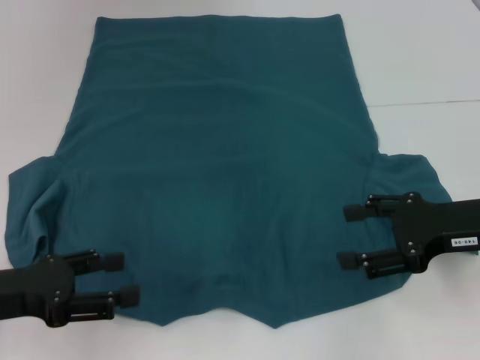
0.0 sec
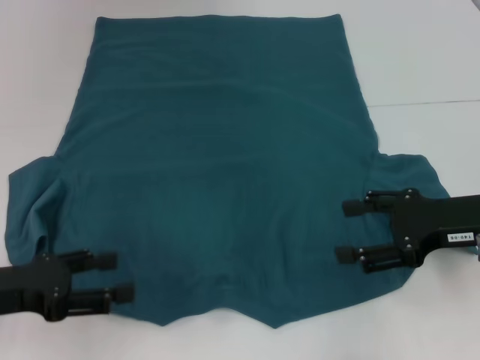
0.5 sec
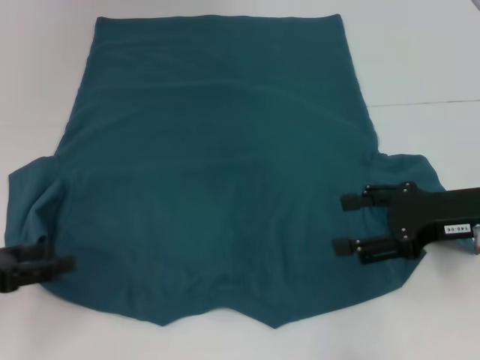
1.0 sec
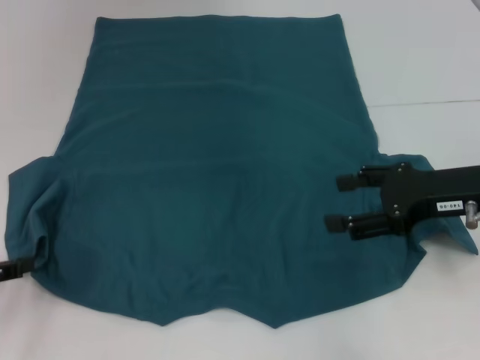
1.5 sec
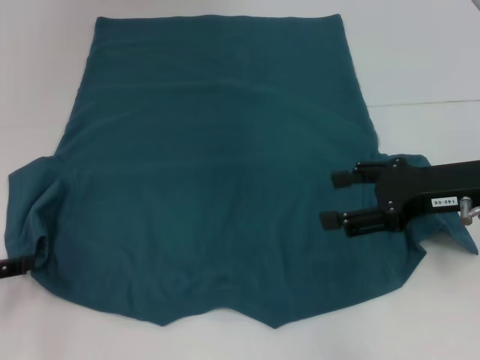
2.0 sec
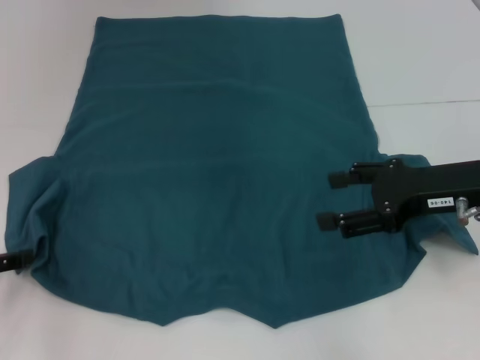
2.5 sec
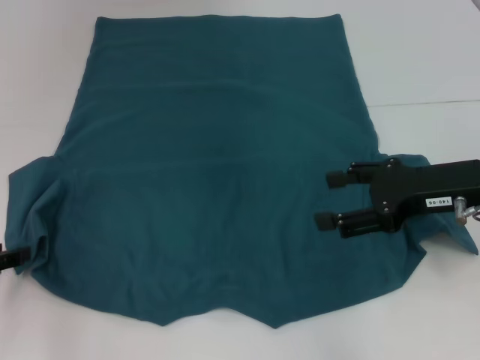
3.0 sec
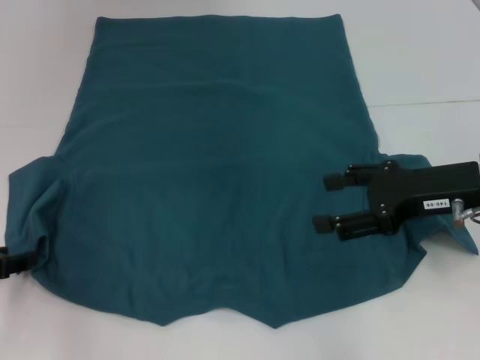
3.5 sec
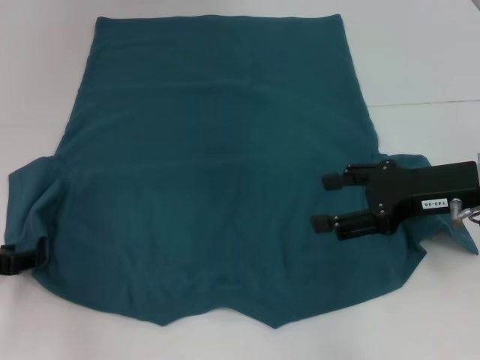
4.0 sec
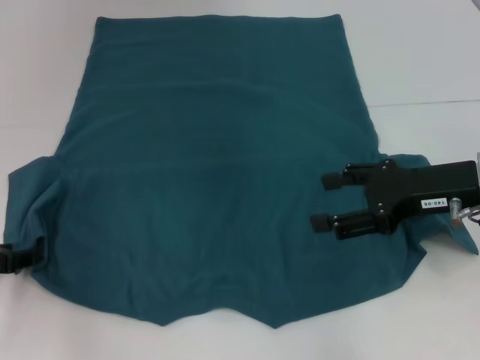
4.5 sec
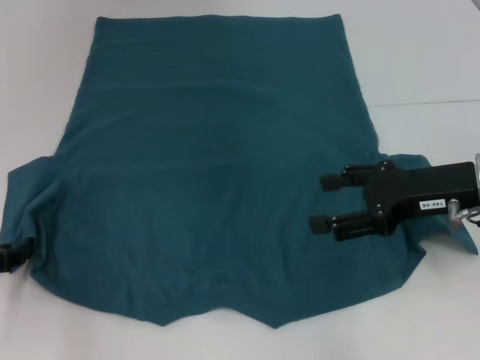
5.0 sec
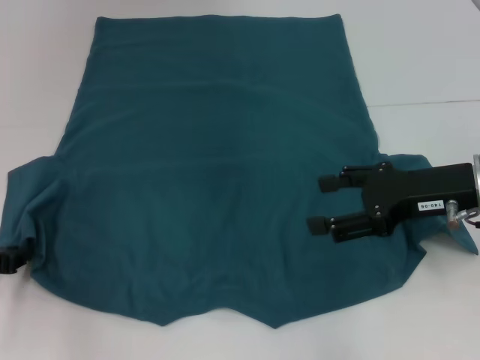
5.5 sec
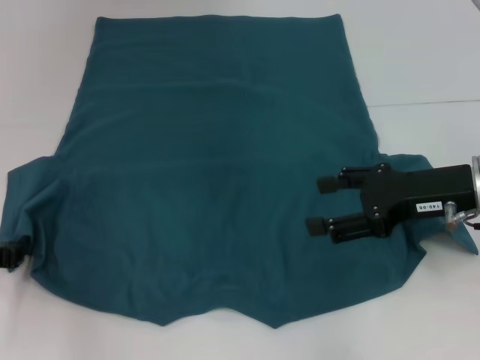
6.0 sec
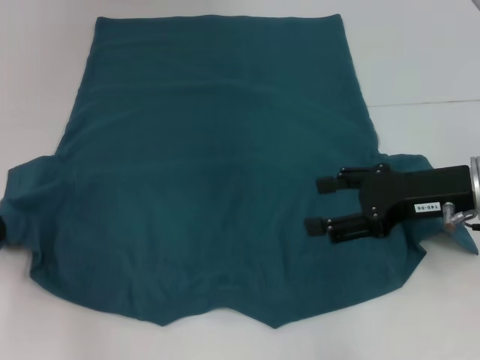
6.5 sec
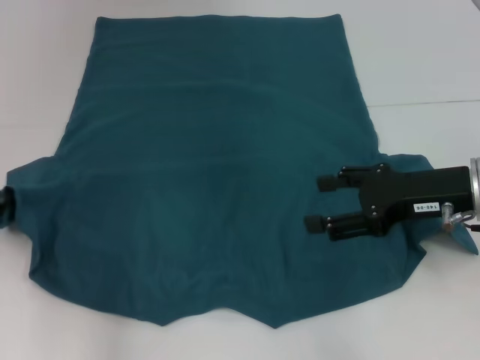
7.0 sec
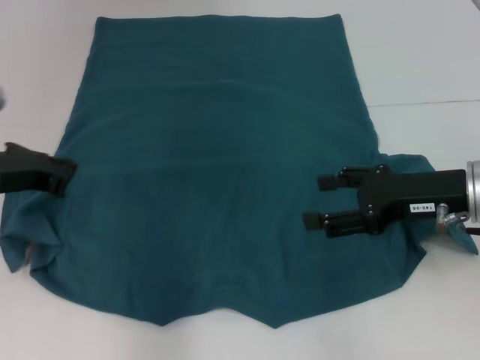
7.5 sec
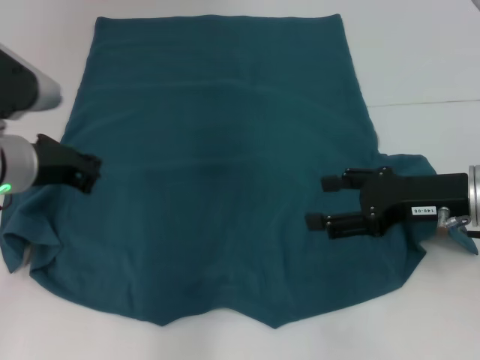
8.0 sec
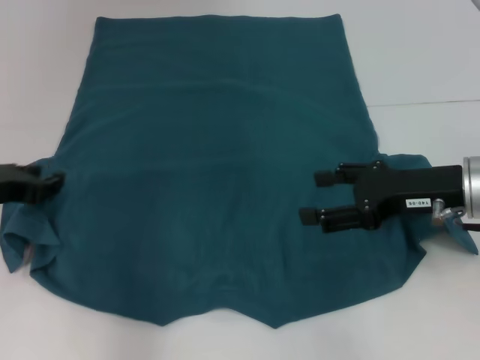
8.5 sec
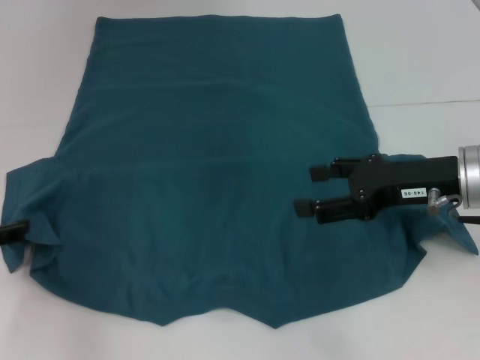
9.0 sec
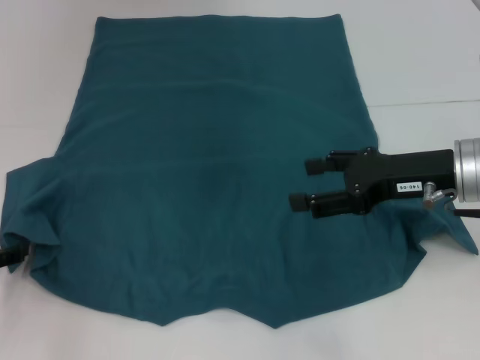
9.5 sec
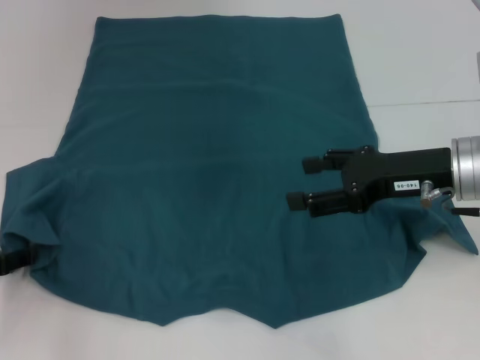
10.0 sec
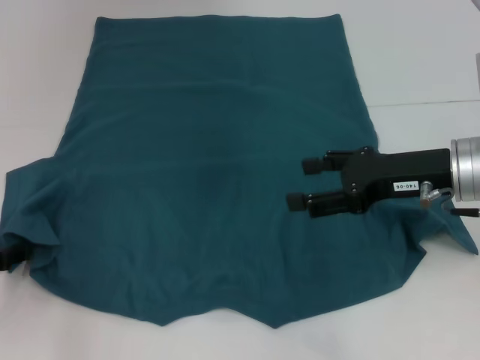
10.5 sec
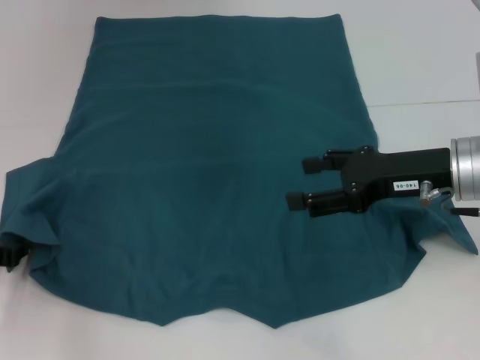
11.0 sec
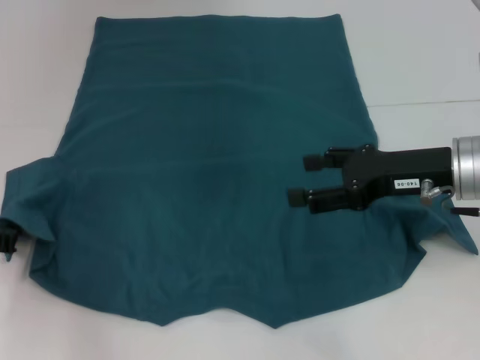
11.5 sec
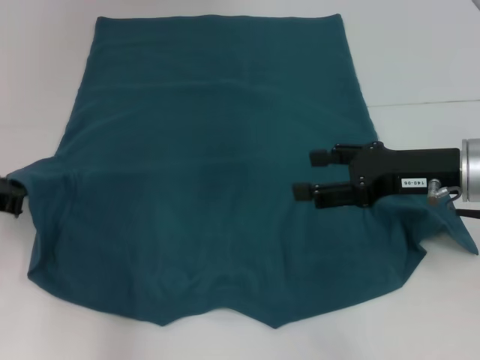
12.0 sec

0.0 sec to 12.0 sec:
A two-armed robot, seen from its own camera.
0.0 sec to 2.0 sec: The left gripper shifts some 5 cm to the left.
2.0 sec to 4.0 sec: There are only small adjustments of the grippers.
4.0 sec to 6.0 sec: The left gripper closes its fingers.
6.0 sec to 8.0 sec: The left gripper shifts about 15 cm to the right, upward and forward.
8.0 sec to 10.0 sec: The left gripper heads to the left, downward and backward, covering about 15 cm, and opens up.
10.0 sec to 12.0 sec: The left gripper changes place by some 5 cm, and closes up.

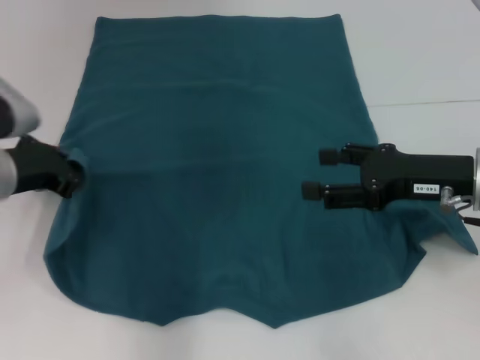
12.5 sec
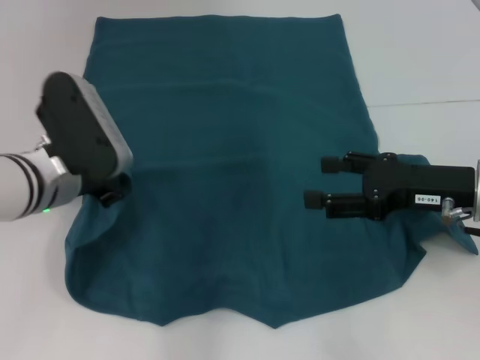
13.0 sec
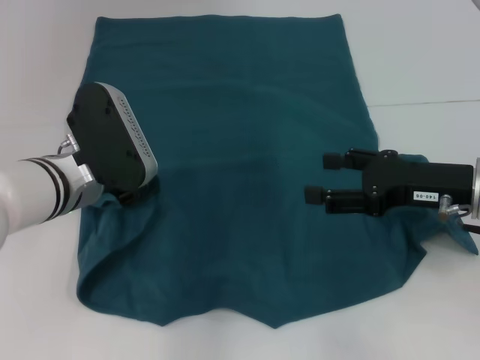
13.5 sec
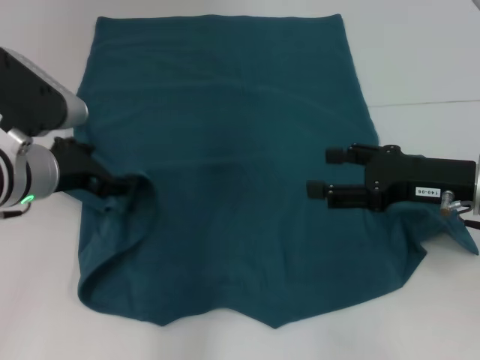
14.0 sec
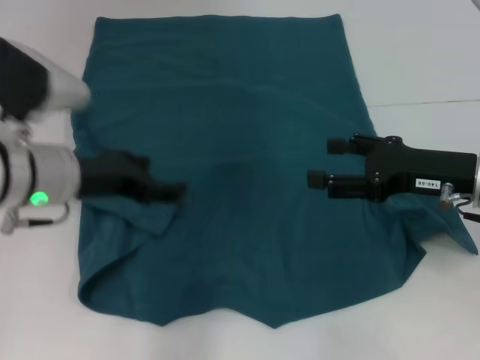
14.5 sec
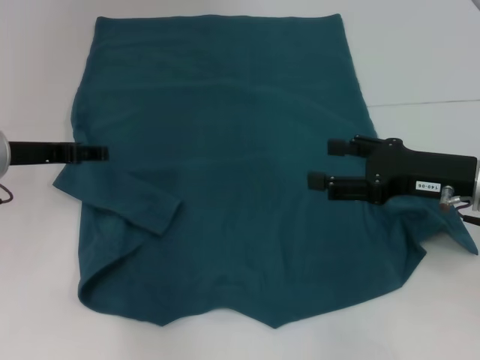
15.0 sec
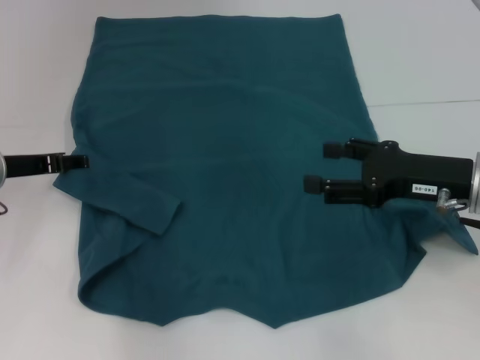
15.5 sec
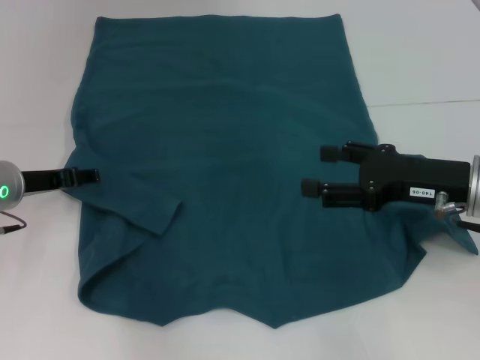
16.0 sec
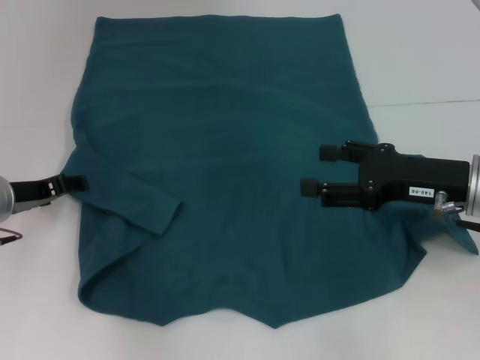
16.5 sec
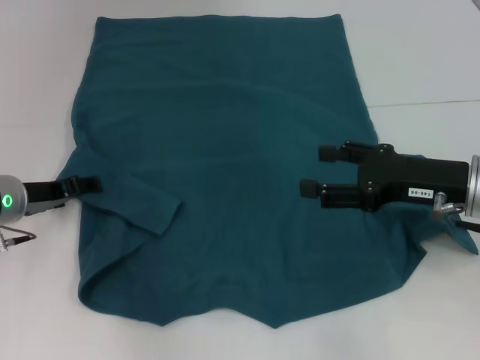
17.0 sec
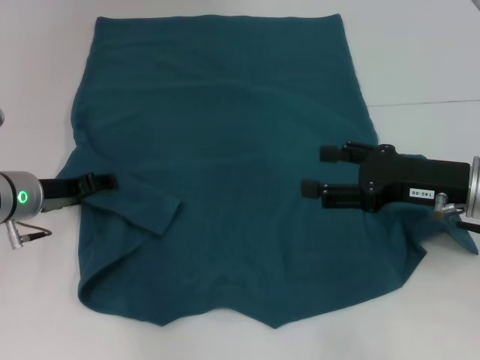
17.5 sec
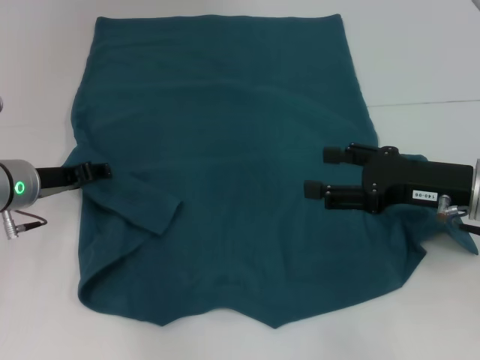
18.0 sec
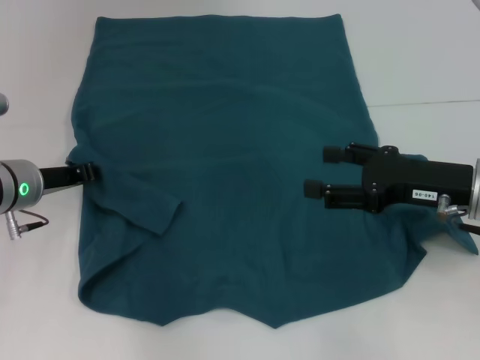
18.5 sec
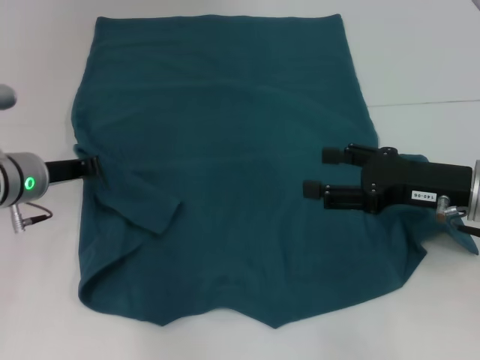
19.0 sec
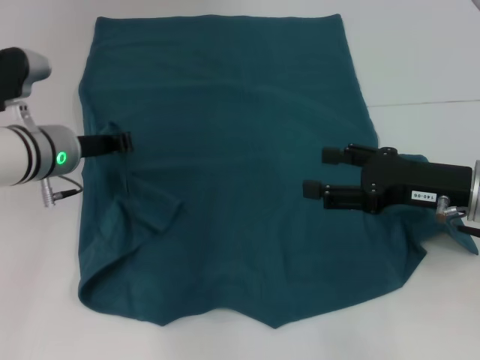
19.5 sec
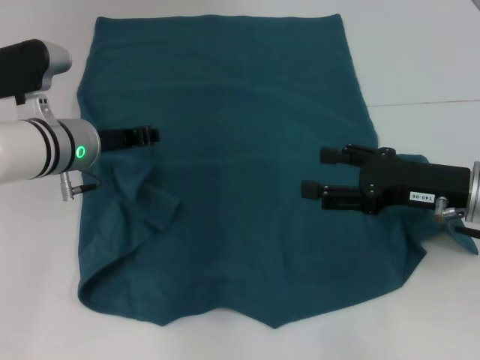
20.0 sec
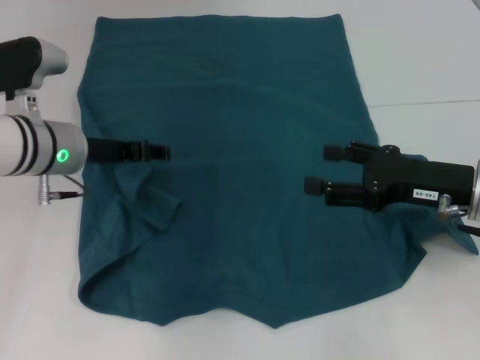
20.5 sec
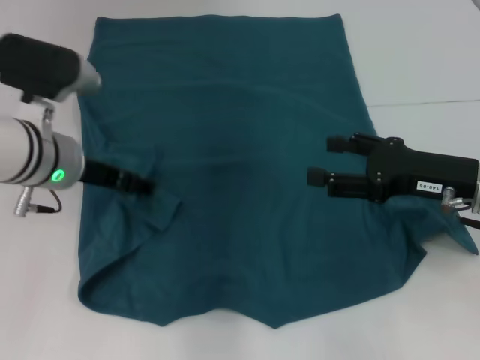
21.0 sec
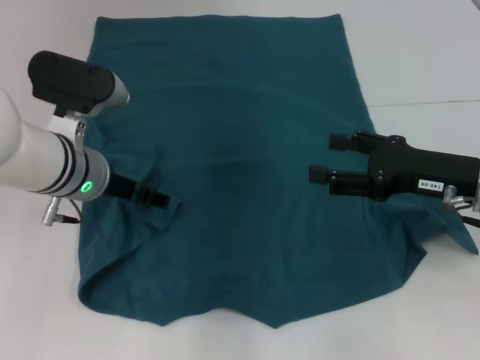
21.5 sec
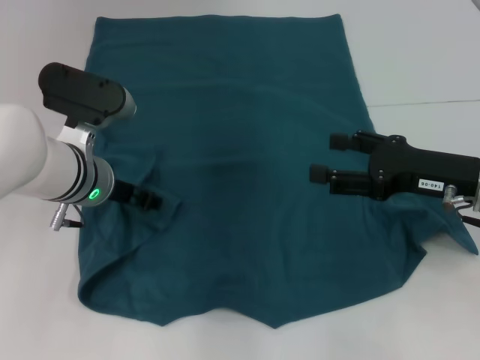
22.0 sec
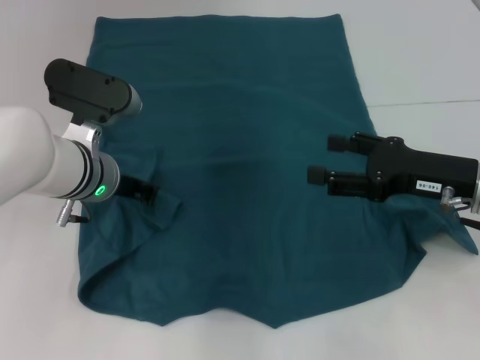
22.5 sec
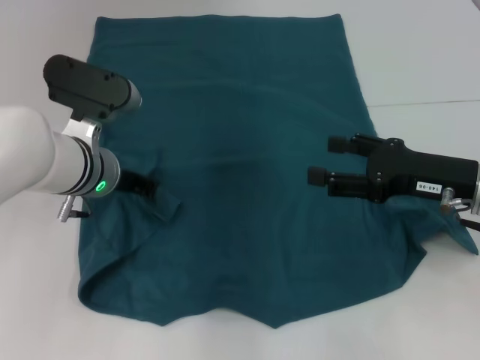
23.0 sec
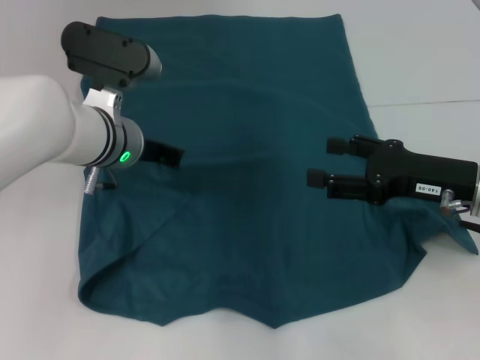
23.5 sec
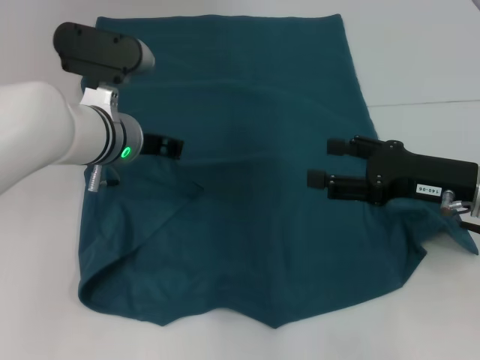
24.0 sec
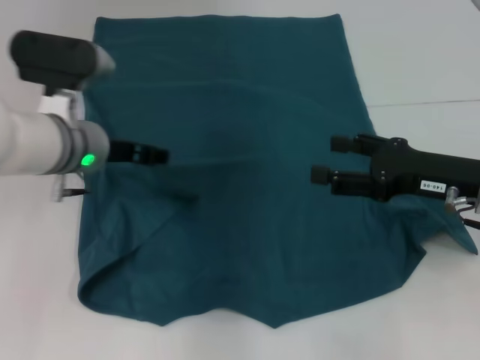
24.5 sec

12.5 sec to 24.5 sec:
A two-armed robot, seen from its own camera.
12.5 sec to 14.5 sec: The left gripper opens up.
14.5 sec to 16.5 sec: The left gripper travels downward and to the left by about 10 cm.
16.5 sec to 18.5 sec: The left gripper closes.
18.5 sec to 20.5 sec: The left gripper ends up roughly 5 cm from where it was, and closes, then opens again.
20.5 sec to 22.5 sec: The left gripper changes place by some 5 cm.
22.5 sec to 24.5 sec: The grippers stay close to where they were, moving slightly.

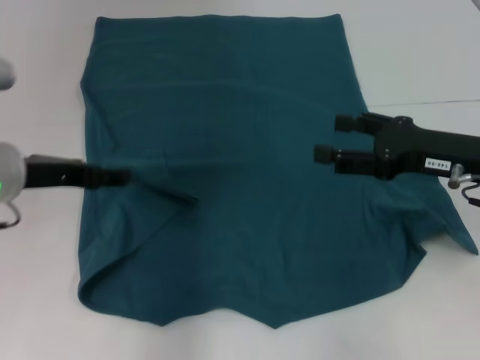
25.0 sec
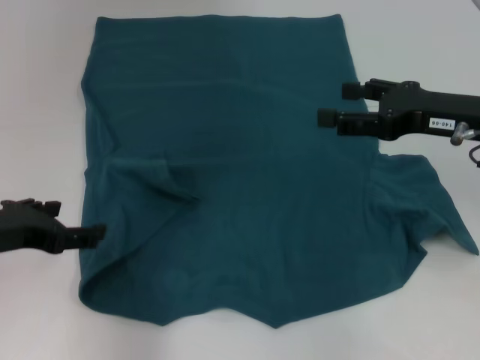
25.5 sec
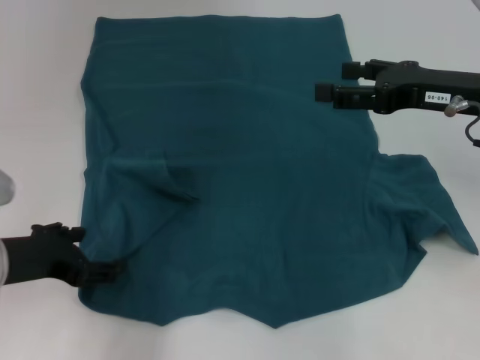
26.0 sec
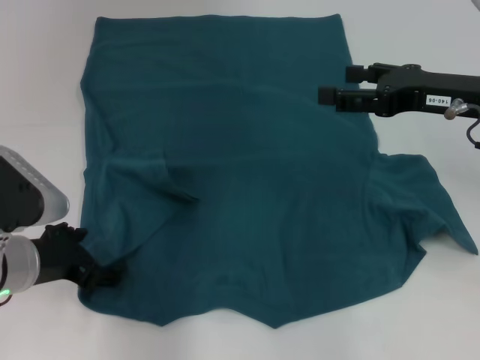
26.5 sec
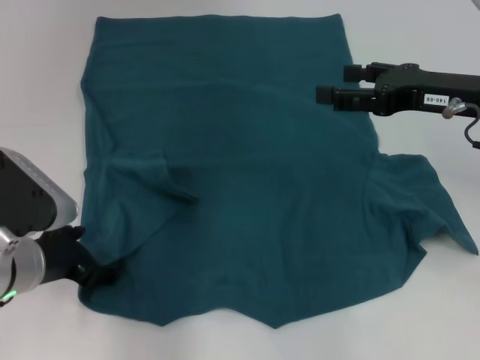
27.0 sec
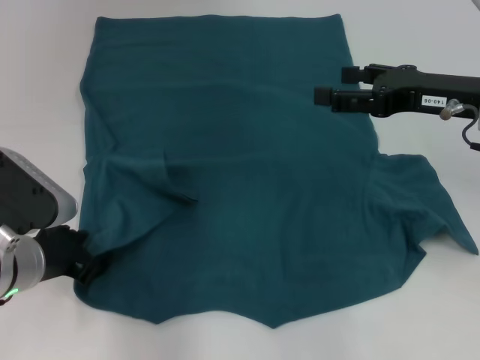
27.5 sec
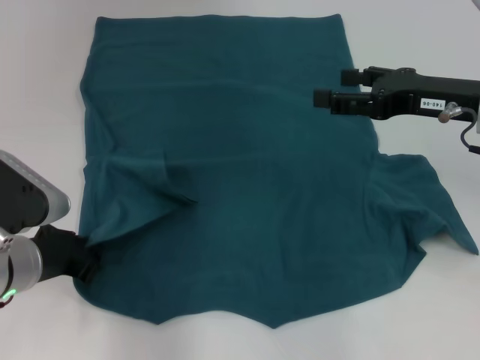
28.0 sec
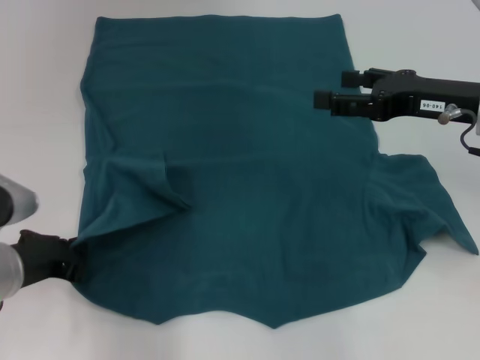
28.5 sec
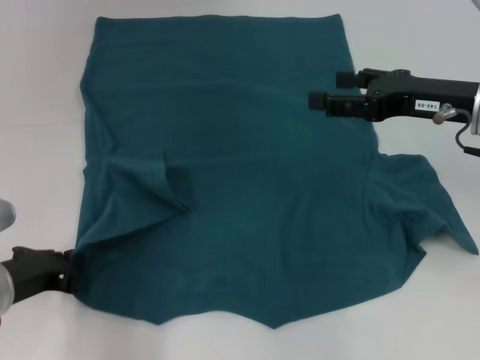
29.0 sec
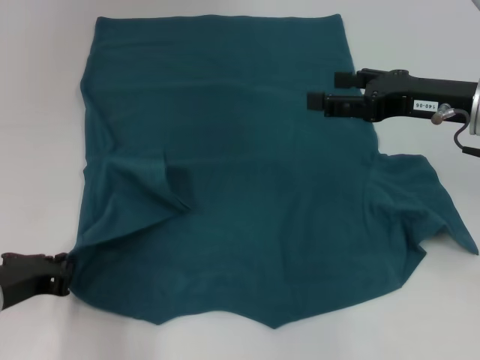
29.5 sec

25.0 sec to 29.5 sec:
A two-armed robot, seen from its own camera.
25.0 sec to 27.0 sec: The right gripper ends up some 5 cm from where it was. The left gripper heads downward, covering some 10 cm.
27.0 sec to 29.5 sec: The left gripper moves roughly 5 cm, and closes its fingers.
